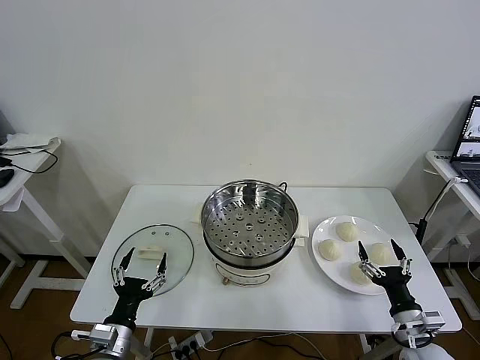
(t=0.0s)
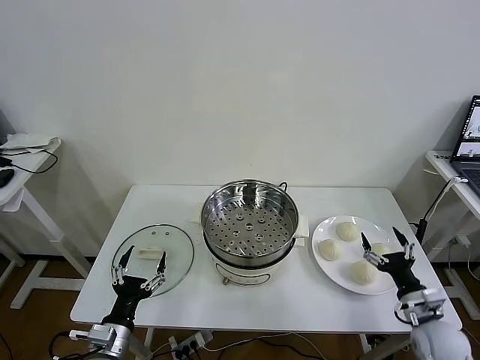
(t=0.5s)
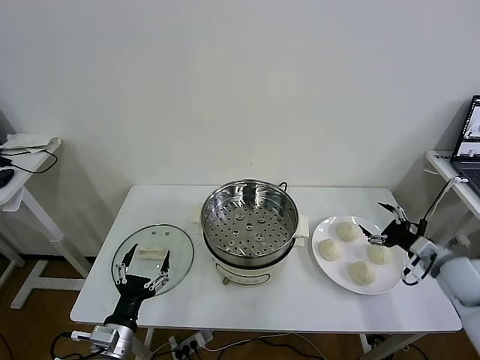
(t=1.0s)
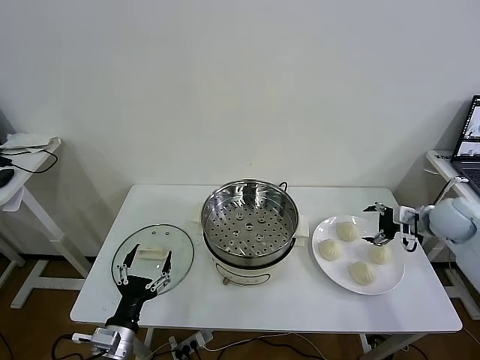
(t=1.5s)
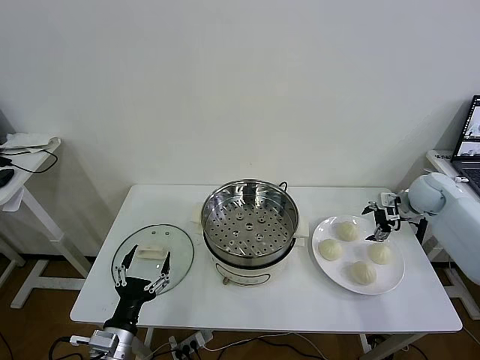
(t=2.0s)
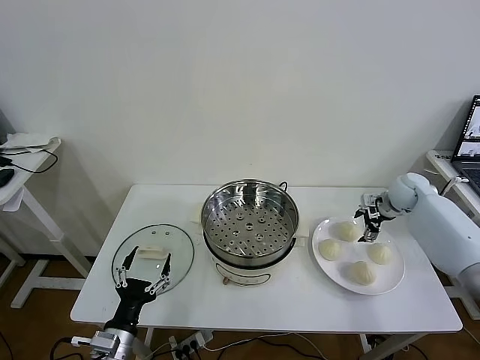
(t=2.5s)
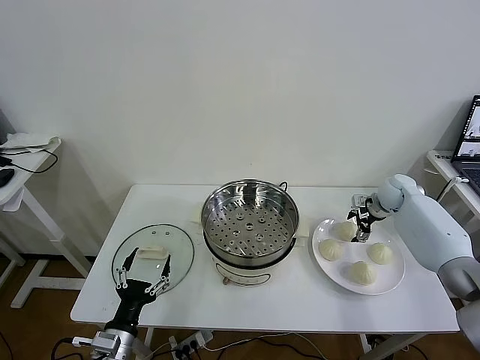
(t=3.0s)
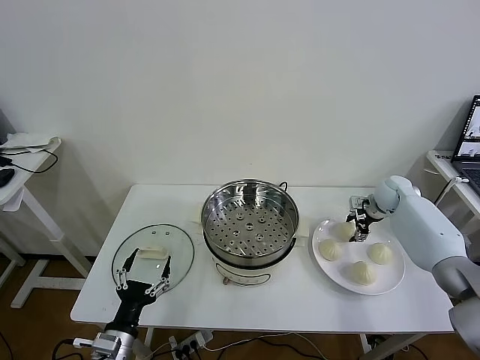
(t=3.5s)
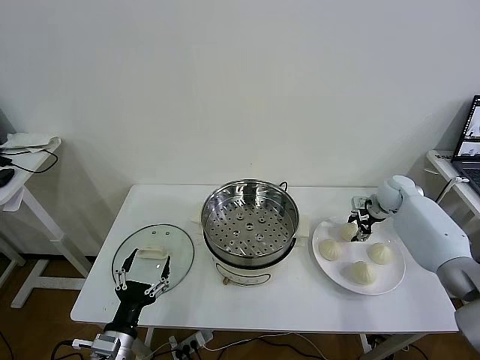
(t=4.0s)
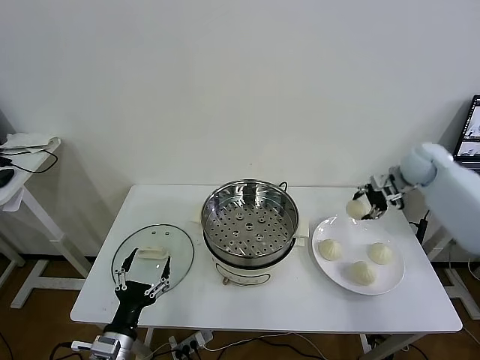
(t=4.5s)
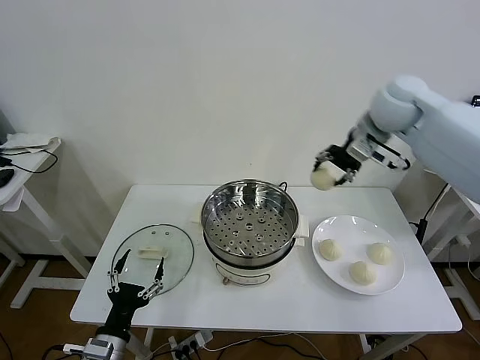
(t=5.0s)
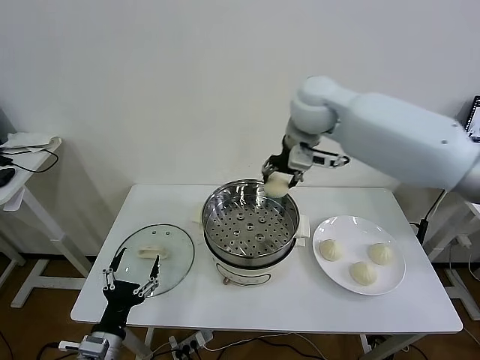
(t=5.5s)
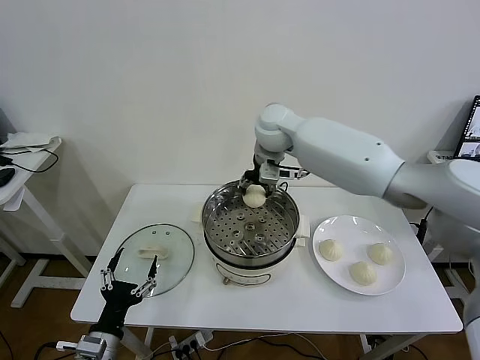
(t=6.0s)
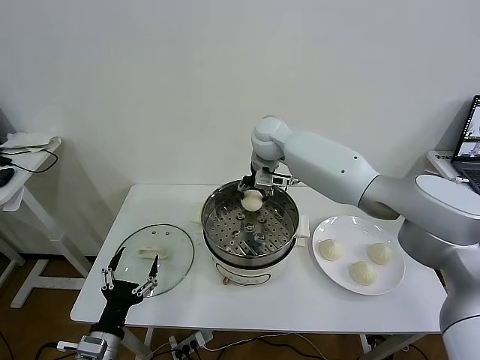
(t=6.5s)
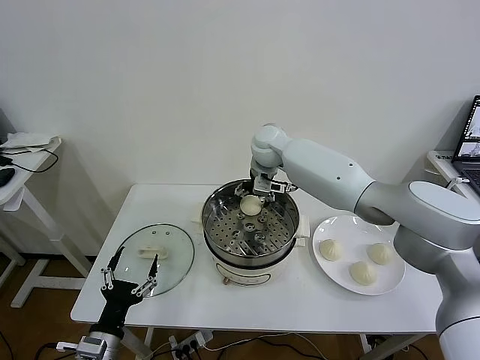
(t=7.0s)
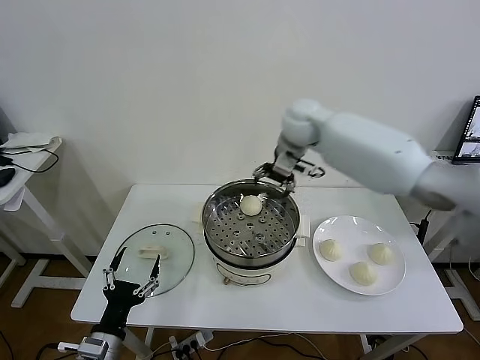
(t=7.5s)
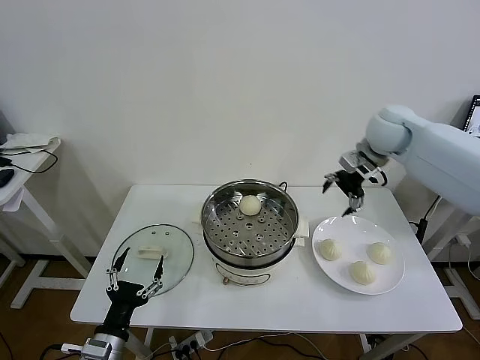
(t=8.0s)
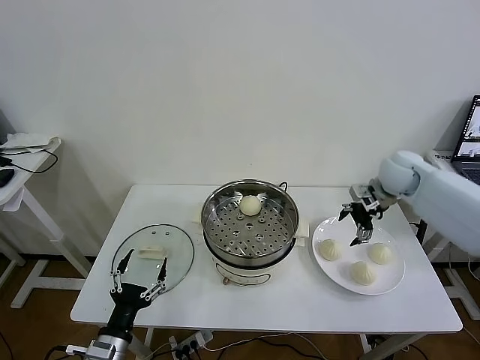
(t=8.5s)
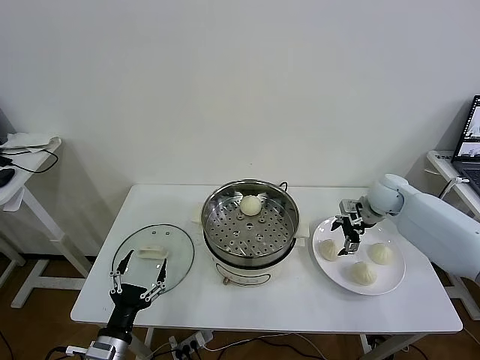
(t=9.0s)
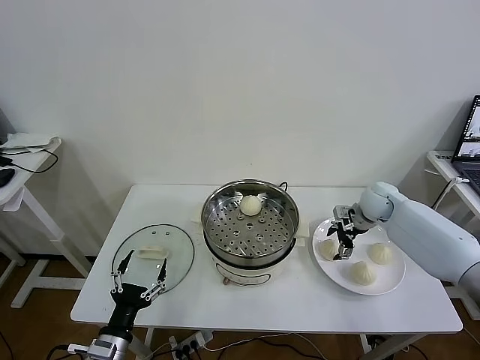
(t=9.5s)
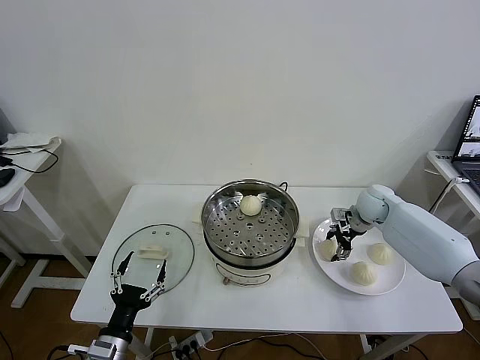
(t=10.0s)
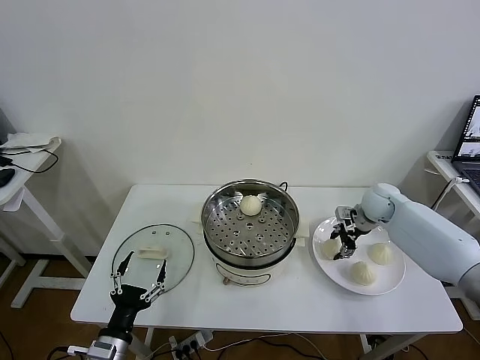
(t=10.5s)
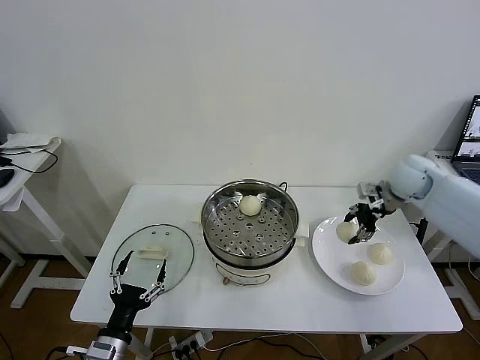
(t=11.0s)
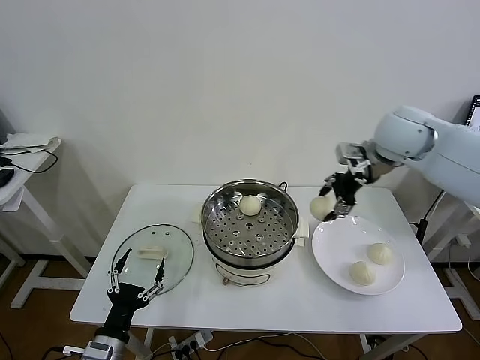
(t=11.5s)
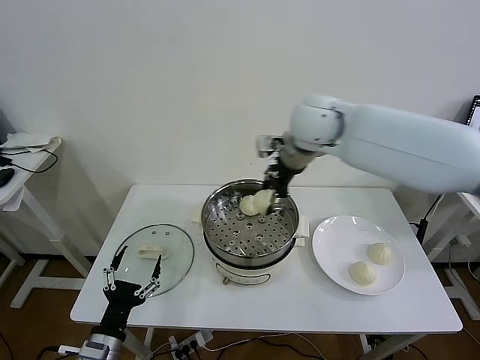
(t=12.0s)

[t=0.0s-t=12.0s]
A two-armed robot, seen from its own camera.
Task of the whole recording: take steamed baozi put them in steamer then cover it.
Step, t=0.0s to t=3.5s: Grasp the baozi in the plate with right gripper.
Step, t=4.0s to t=7.0s: Place the baozi on the steamer with right gripper.
Step, t=7.5s to t=10.0s: Grasp the baozi in the plate with right gripper.
t=2.0s to t=4.0s: The right gripper moves about 5 cm, and closes.
t=4.0s to t=6.0s: The right gripper goes some 40 cm to the left and upward.
t=6.0s to t=8.0s: The right gripper is displaced to the right by roughly 25 cm, and opens up.
t=8.0s to t=10.0s: The right gripper travels downward by about 20 cm, and closes its fingers.
t=10.0s to t=12.0s: The right gripper shifts about 35 cm upward and to the left.

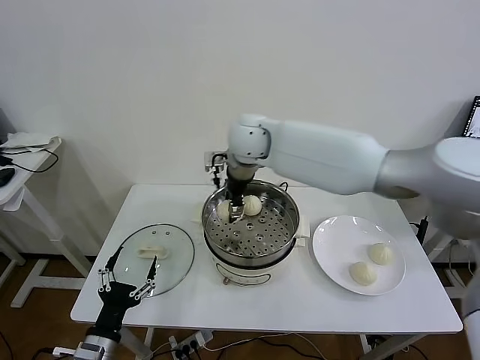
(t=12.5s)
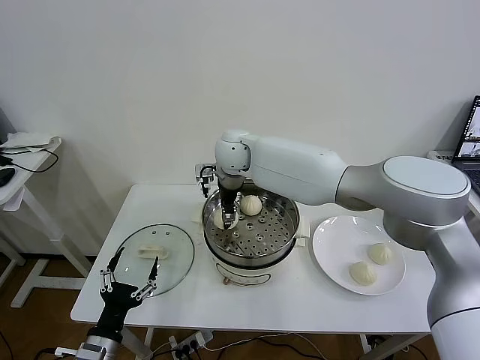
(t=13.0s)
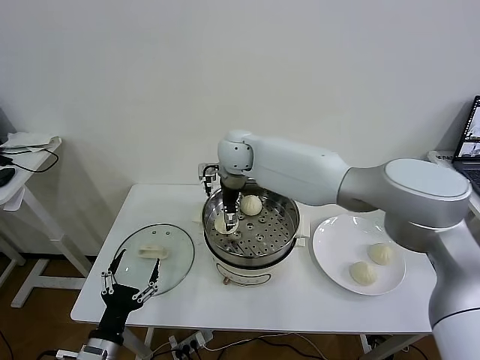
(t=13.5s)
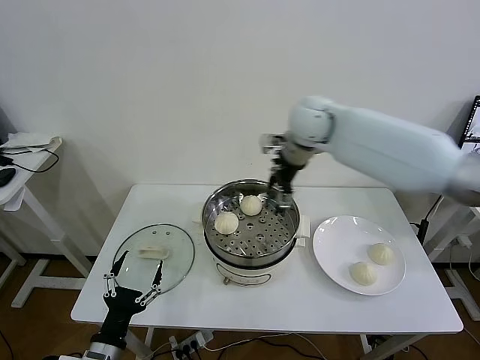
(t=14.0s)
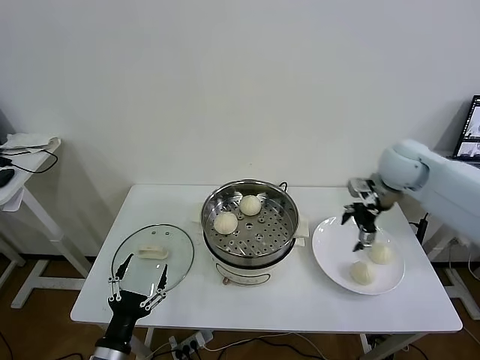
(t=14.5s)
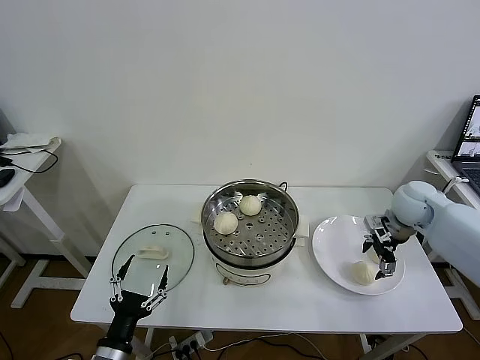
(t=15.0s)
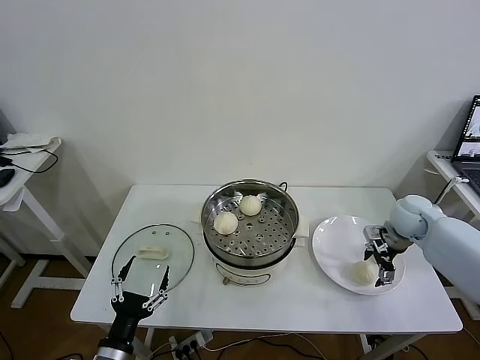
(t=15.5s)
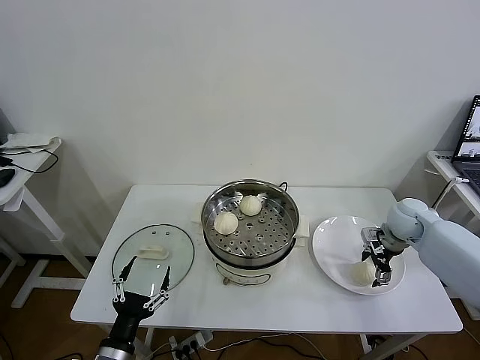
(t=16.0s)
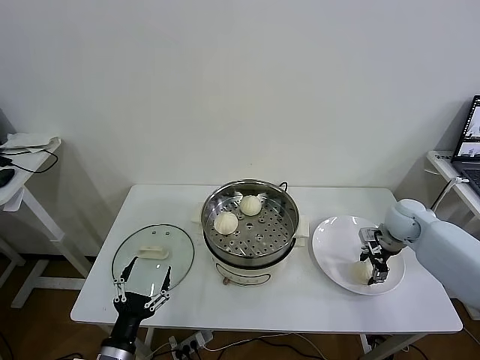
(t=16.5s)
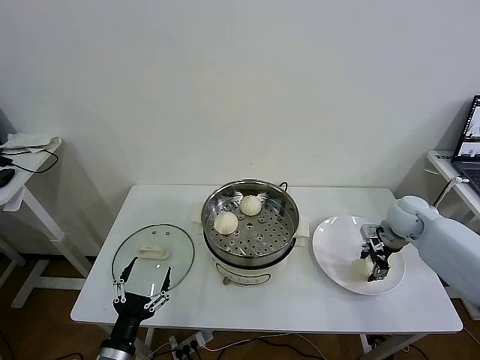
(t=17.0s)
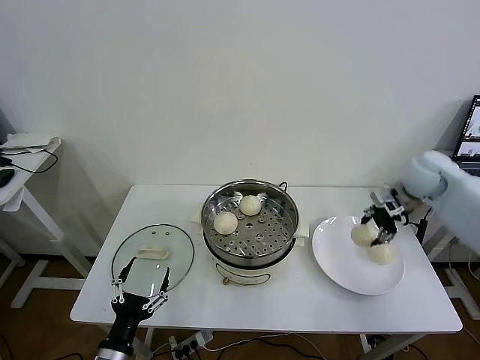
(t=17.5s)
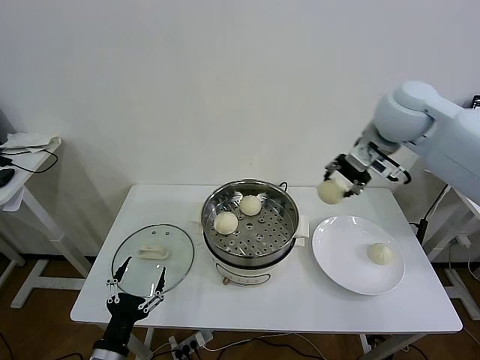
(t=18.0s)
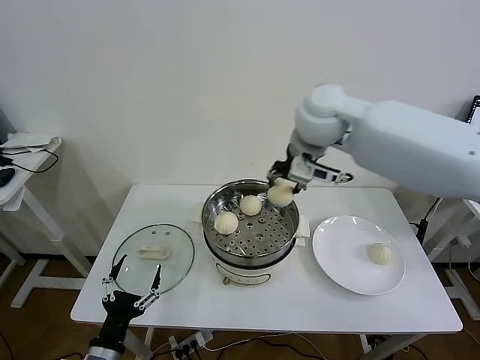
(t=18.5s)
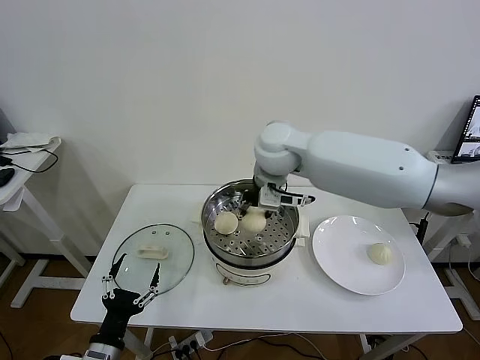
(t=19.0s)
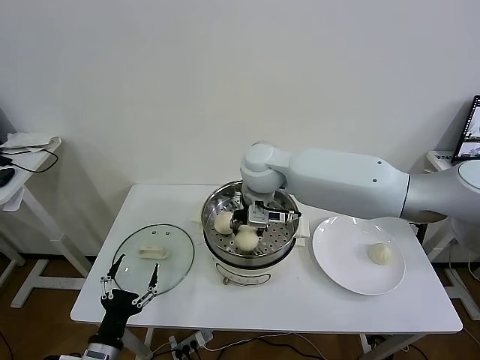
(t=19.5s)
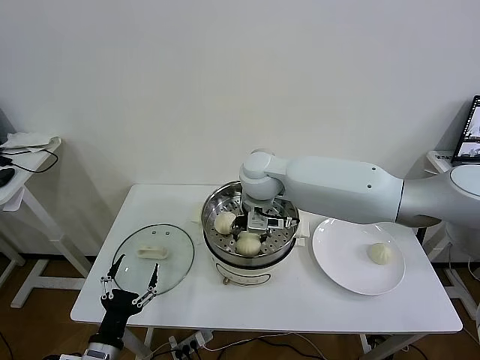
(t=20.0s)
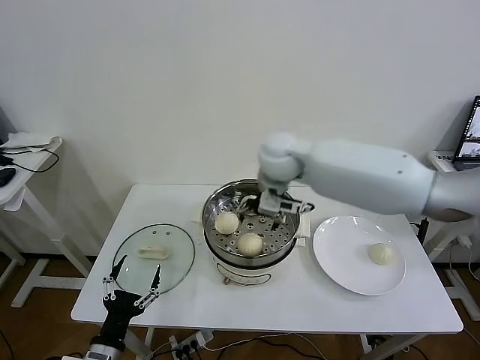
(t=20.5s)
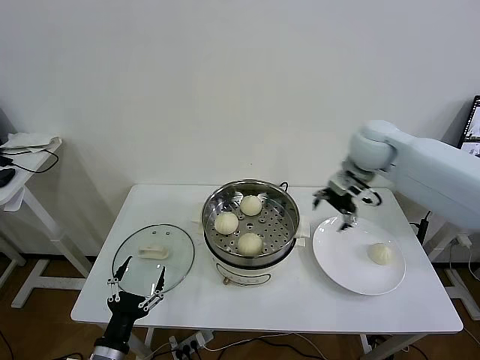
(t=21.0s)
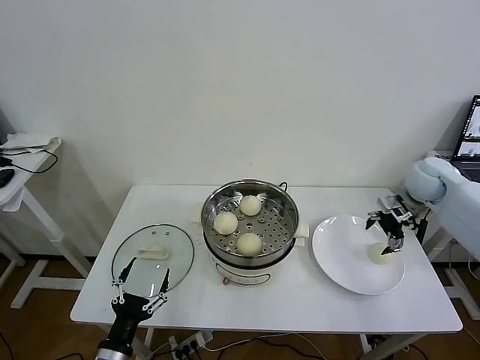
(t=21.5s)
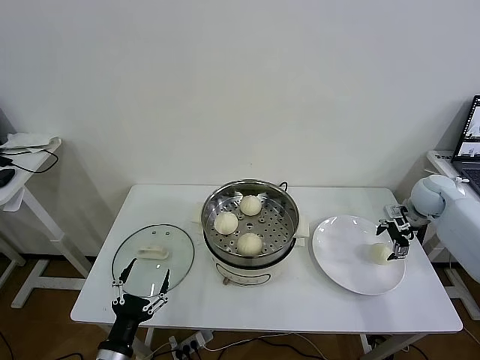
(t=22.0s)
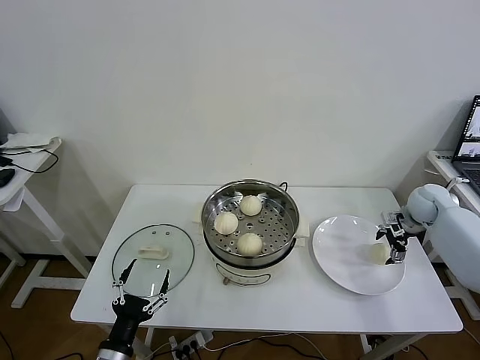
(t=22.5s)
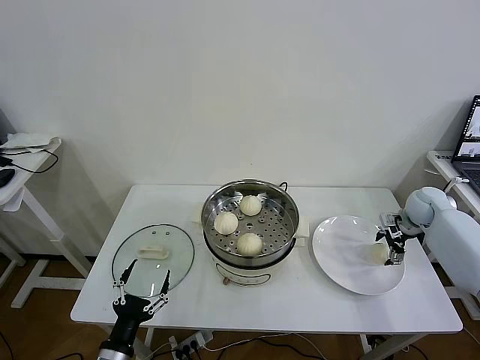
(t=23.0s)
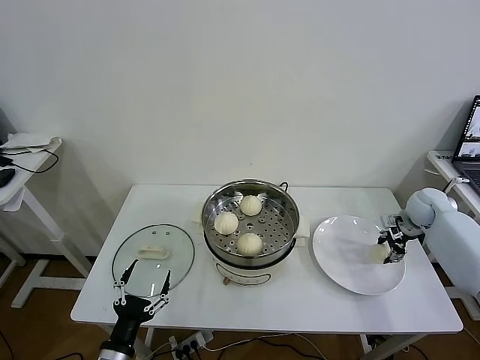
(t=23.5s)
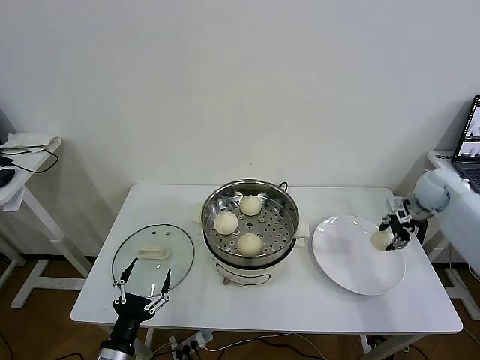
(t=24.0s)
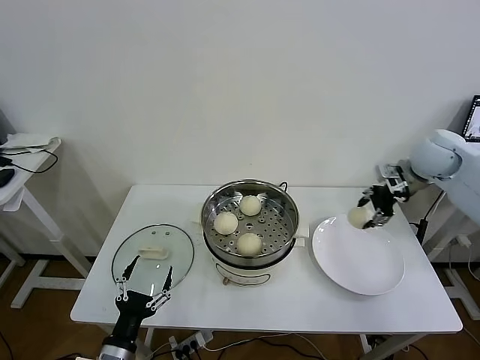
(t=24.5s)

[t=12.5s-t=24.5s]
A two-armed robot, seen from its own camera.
Task of the whole recording: take steamed baozi put them in steamer then cover it.
Step, t=14.0s to t=16.5s: Grasp the baozi in the plate with right gripper.
Step, t=17.5s to t=20.0s: Place the baozi on the steamer with right gripper.
Step, t=20.5s to t=23.5s: Grasp the baozi in the plate with right gripper.
t=12.5s to t=14.5s: The right gripper shifts some 35 cm to the right, and opens up.
t=14.5s to t=16.5s: The right gripper heads downward, covering about 15 cm, and closes up.
t=16.5s to t=18.5s: The right gripper goes approximately 40 cm to the left and upward, and closes its fingers.
t=18.5s to t=20.5s: The right gripper moves downward, about 5 cm, and opens.
t=20.5s to t=22.5s: The right gripper goes some 40 cm to the right and downward.
t=22.5s to t=24.5s: The right gripper heads upward and to the left, covering about 20 cm, and closes its fingers.

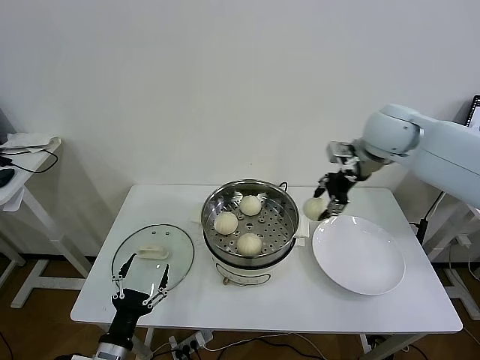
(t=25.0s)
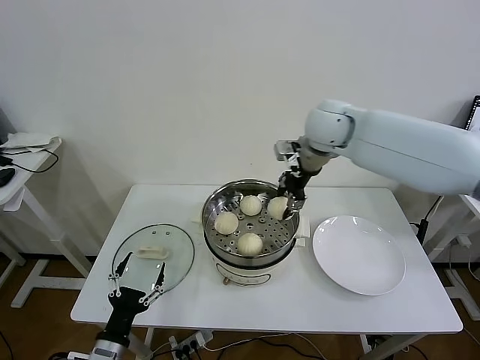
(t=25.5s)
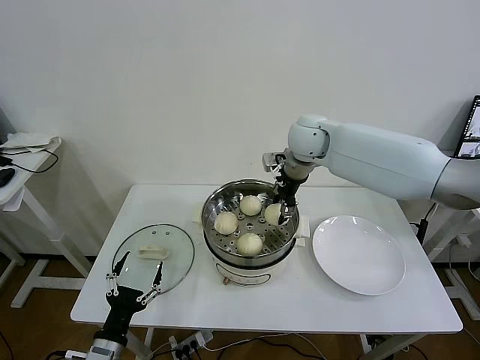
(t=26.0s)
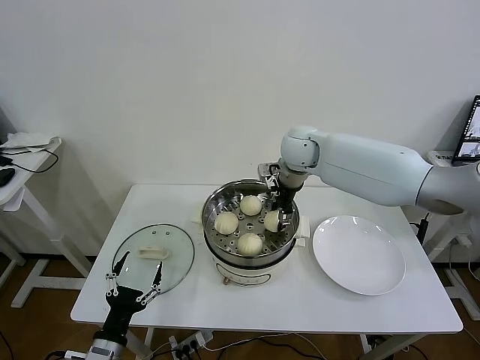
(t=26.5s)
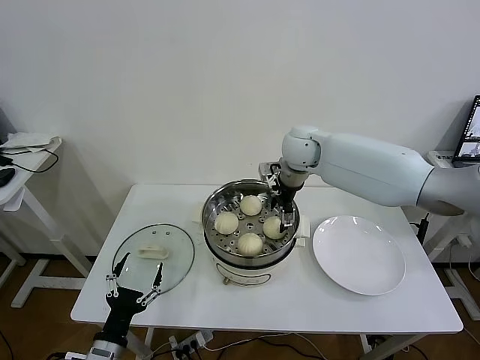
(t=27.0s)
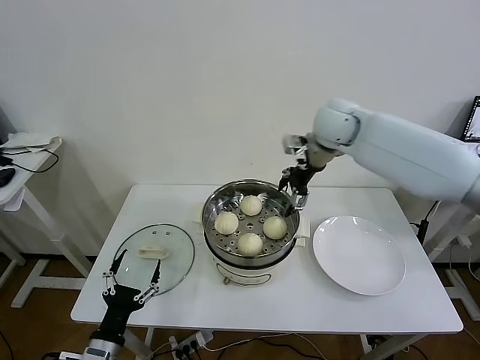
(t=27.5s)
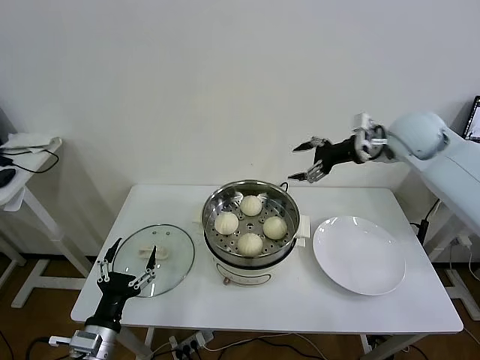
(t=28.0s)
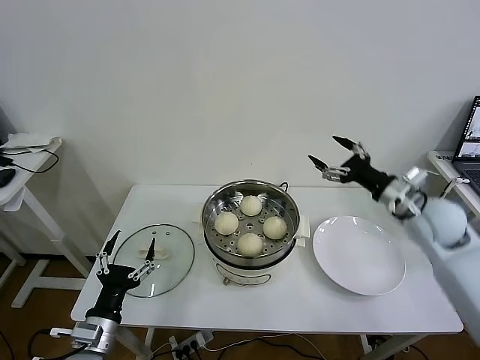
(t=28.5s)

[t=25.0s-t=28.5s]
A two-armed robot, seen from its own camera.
Task of the whole recording: take steamed baozi put them in steamer then cover it.
Step, t=25.0s to t=27.0s: Place the baozi on the steamer with right gripper.
t=25.0s to t=27.0s: The right gripper is displaced to the left, downward and forward by some 15 cm, and opens up.
t=27.0s to t=28.5s: The right gripper shifts roughly 30 cm to the right and backward. The left gripper moves some 5 cm.
